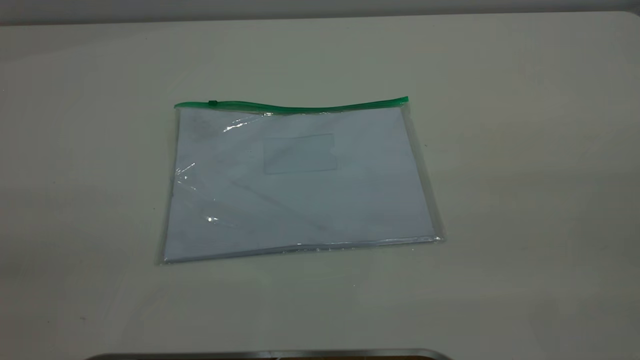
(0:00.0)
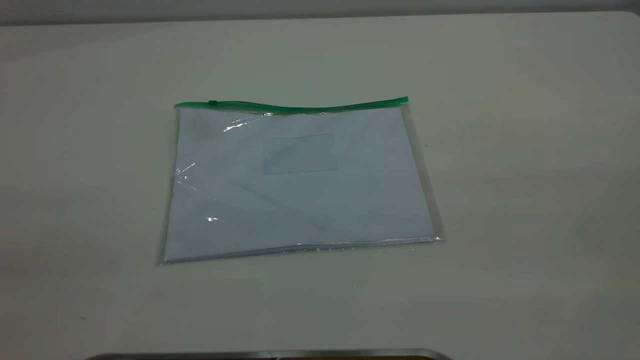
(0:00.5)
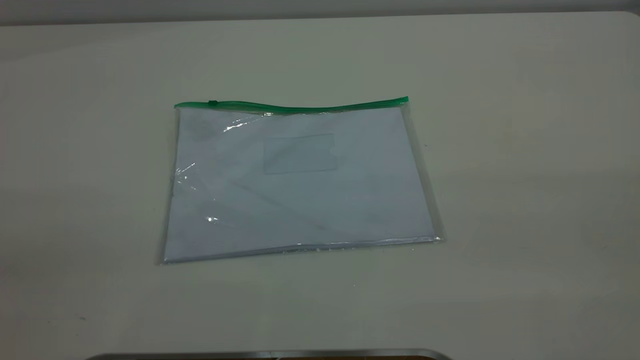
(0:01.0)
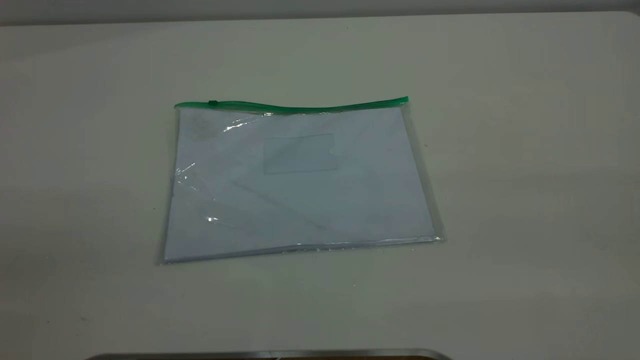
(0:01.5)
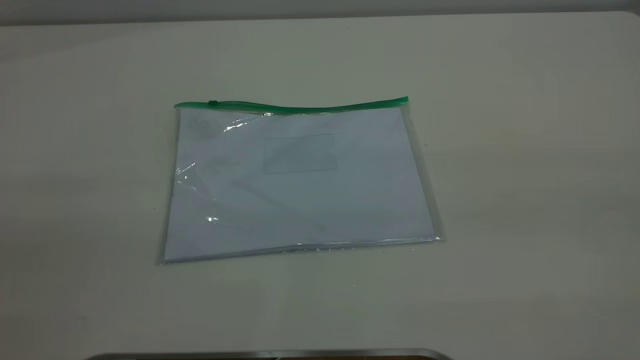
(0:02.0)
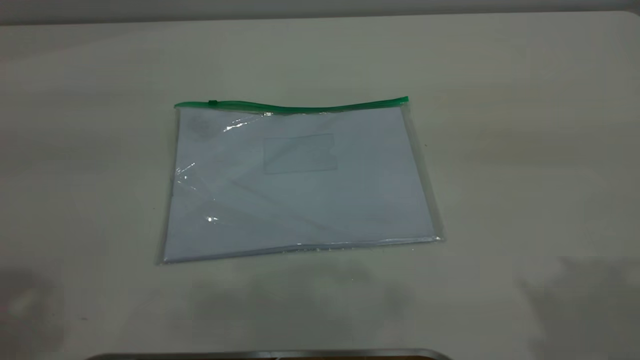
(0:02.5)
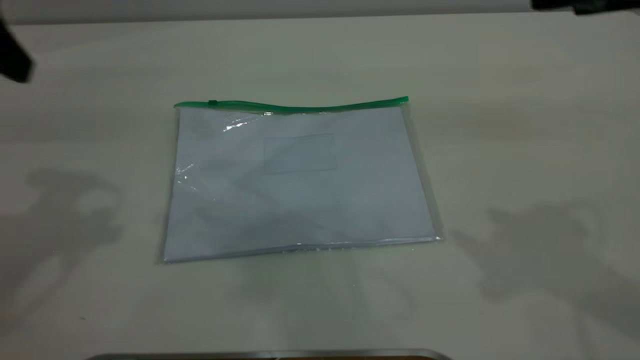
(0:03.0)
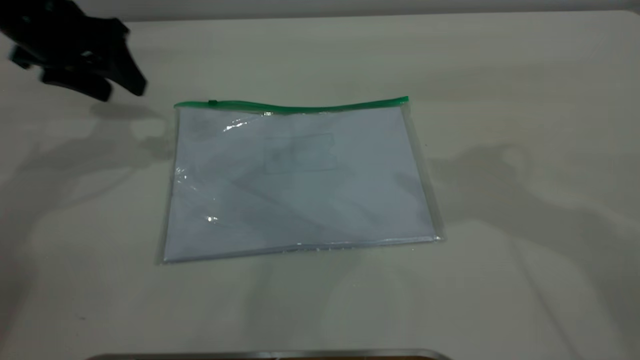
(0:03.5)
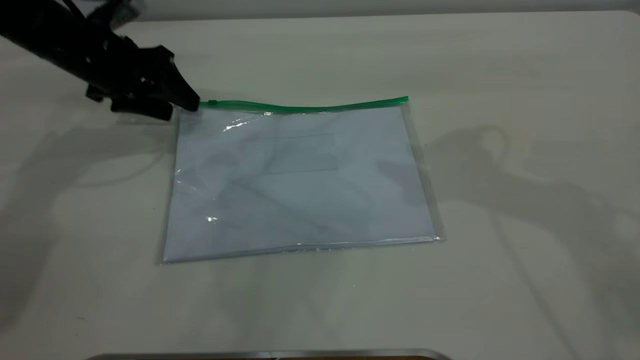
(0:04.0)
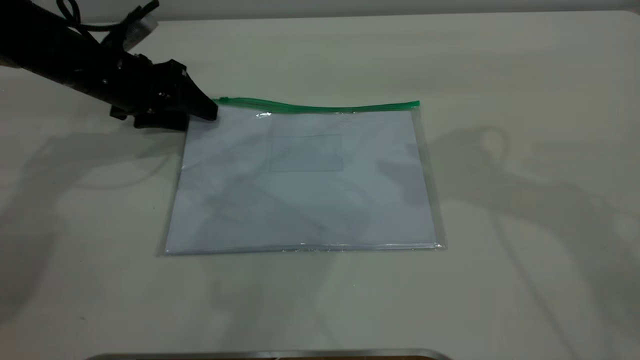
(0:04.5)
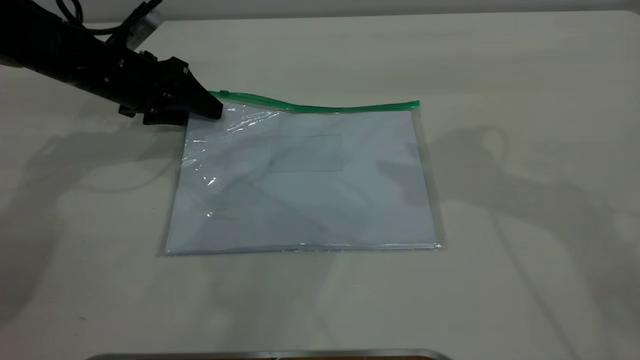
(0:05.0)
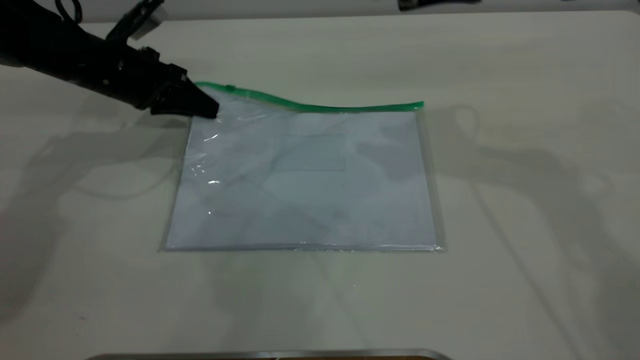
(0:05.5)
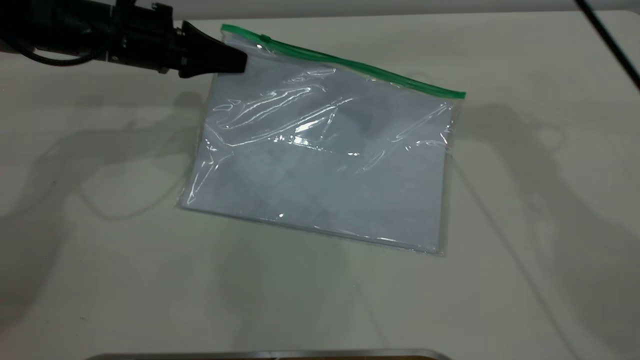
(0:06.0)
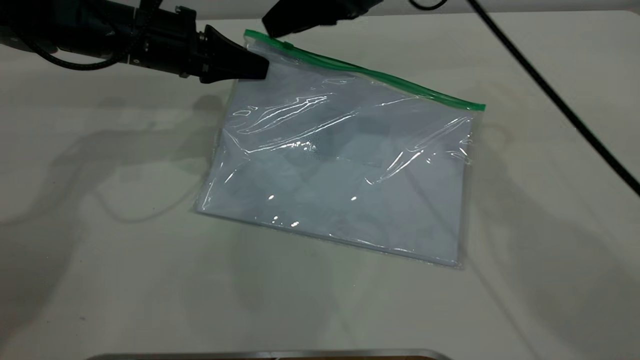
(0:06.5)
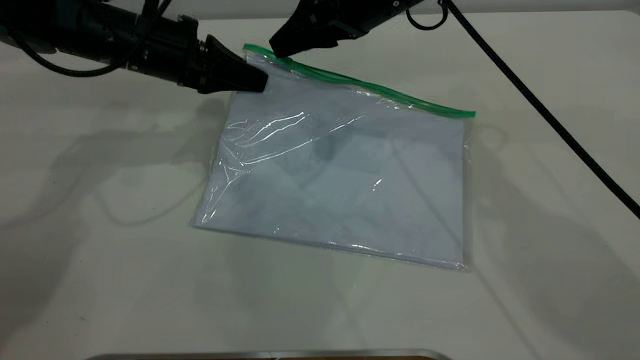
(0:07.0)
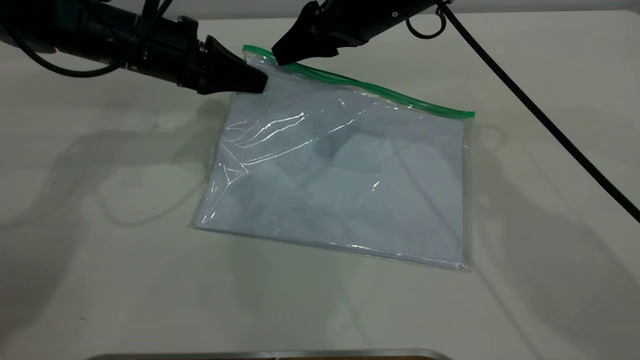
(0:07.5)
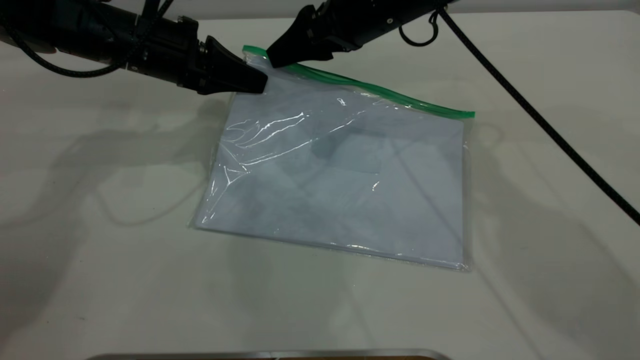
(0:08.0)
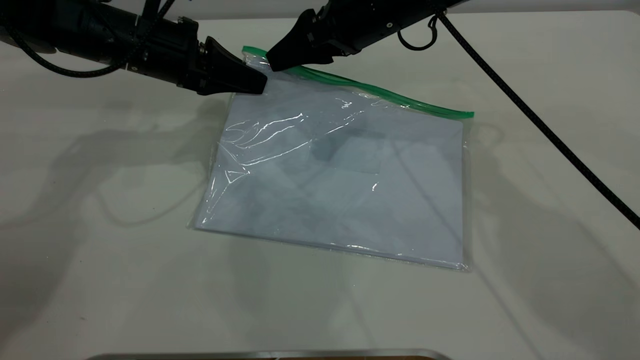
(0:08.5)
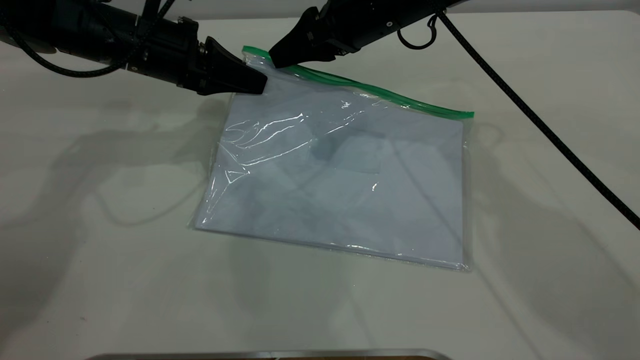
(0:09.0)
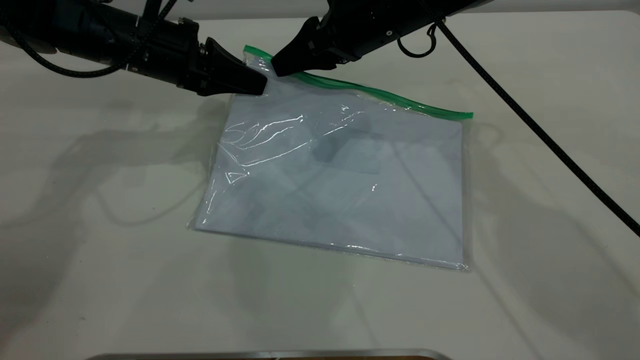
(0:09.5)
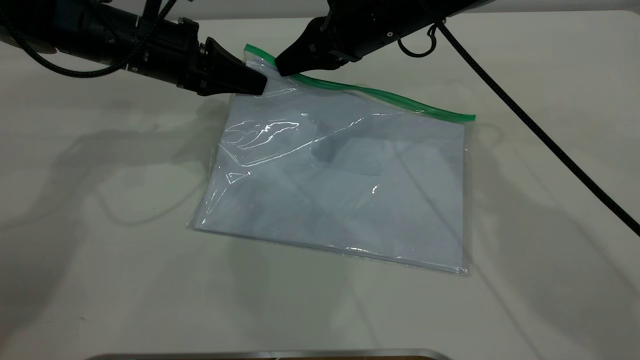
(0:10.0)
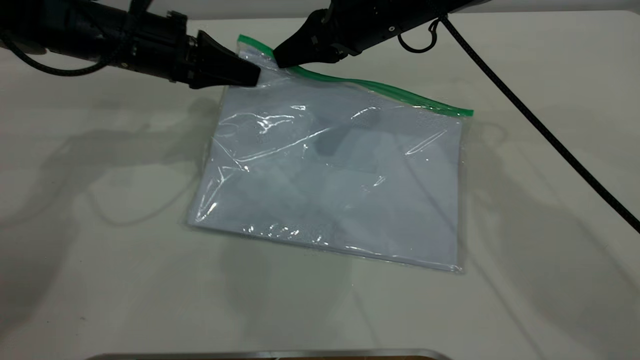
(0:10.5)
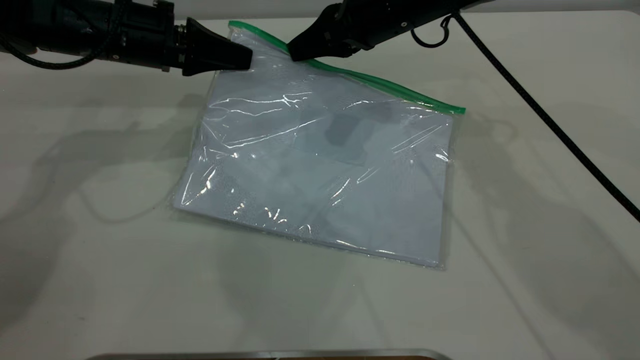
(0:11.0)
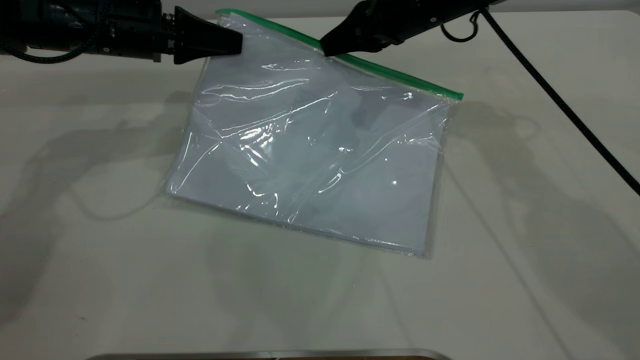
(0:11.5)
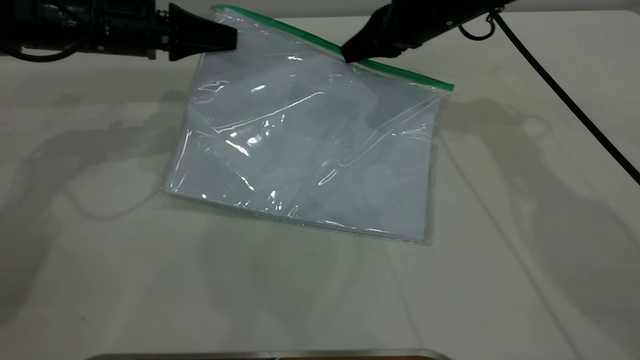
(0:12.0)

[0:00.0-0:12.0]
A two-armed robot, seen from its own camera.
Step, 0:00.0 to 0:05.5: Pick up the transparent plastic bag with the left gripper.
0:02.0 to 0:04.0: The left gripper heads forward and downward, covering some 50 cm.
0:04.0 to 0:06.0: The left gripper closes its fingers. The right gripper moves forward, downward and to the left, about 15 cm.
0:06.0 to 0:08.0: The right gripper goes approximately 10 cm downward and to the left.
0:08.0 to 0:10.0: The right gripper closes its fingers.
0:10.0 to 0:12.0: The right gripper shifts some 5 cm to the right.

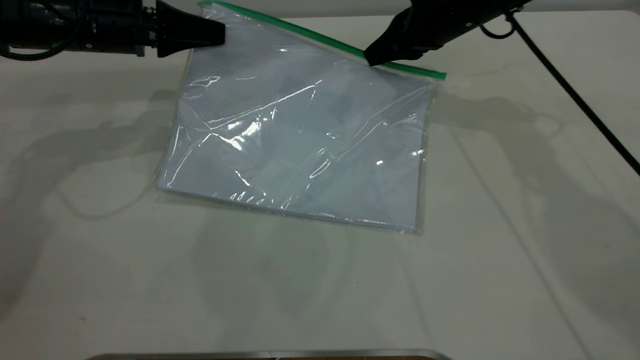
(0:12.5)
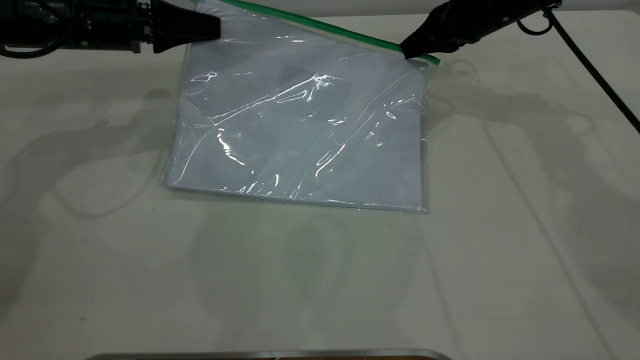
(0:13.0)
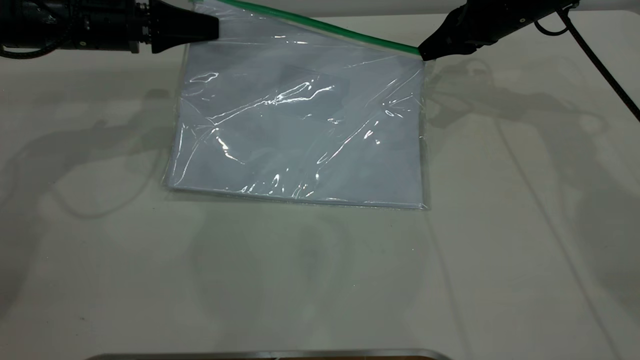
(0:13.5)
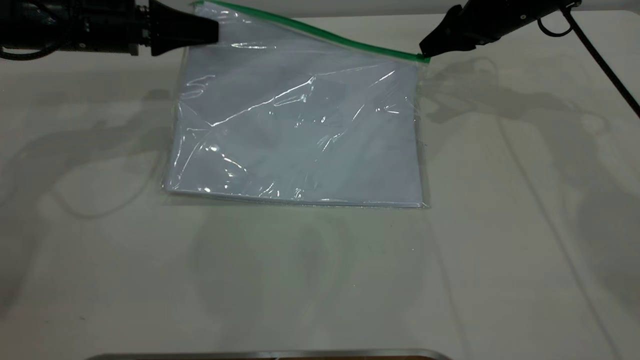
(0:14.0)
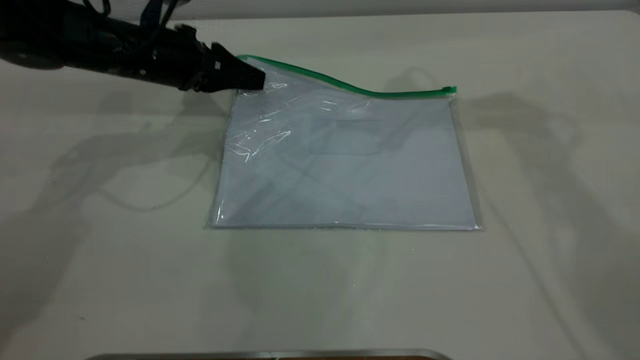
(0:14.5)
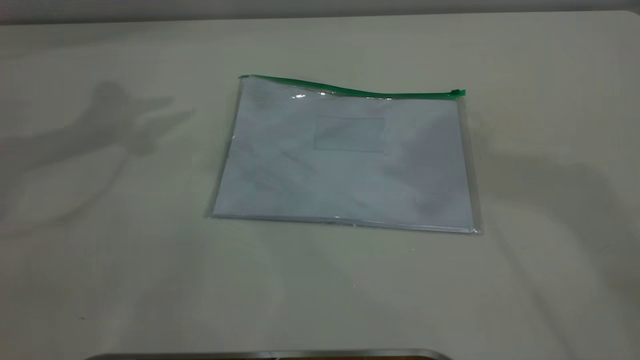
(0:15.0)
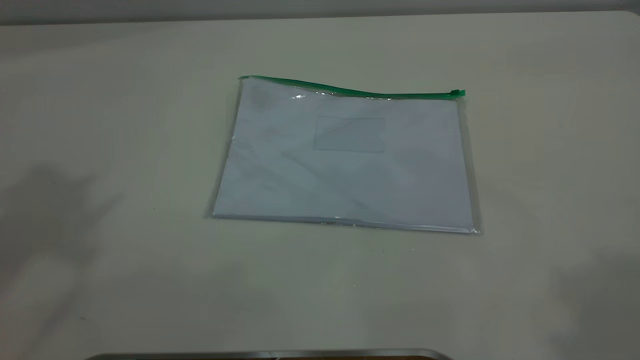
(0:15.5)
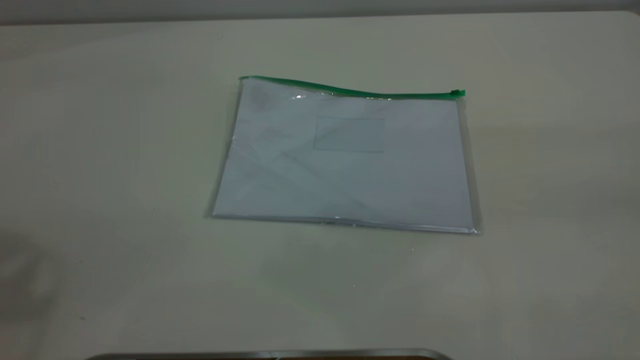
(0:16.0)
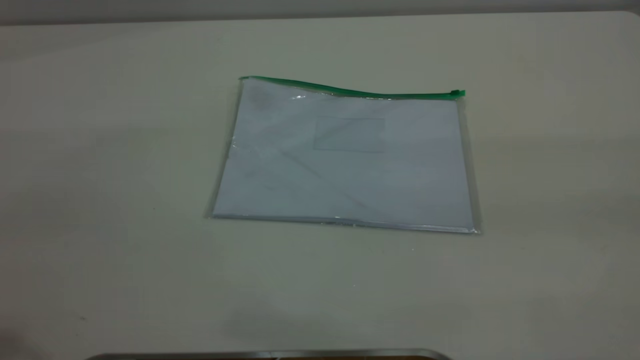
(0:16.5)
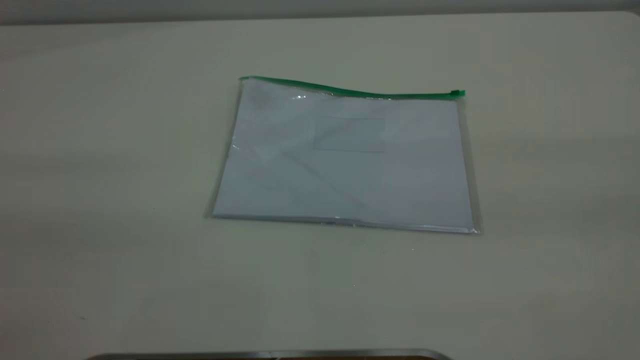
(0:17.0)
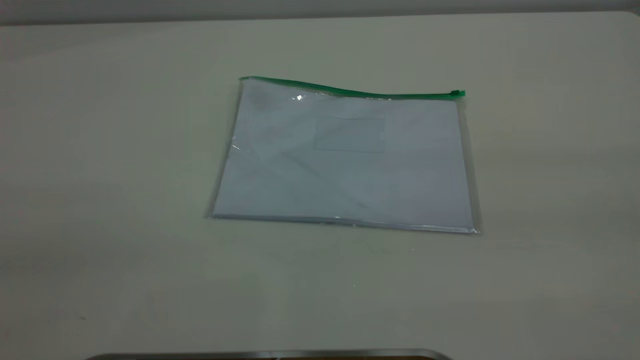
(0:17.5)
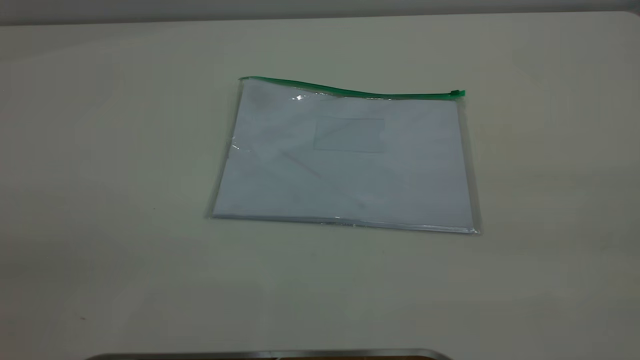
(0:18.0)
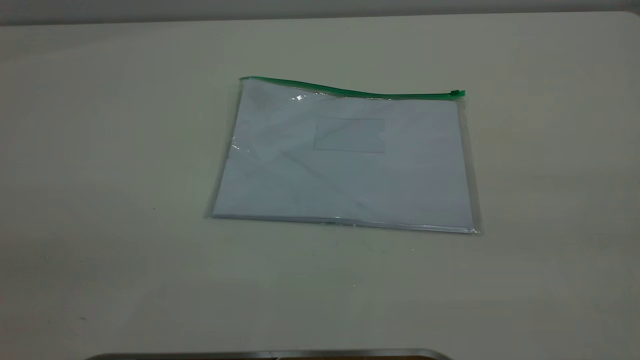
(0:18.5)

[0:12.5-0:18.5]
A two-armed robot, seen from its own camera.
0:12.5 to 0:14.5: The right gripper moves upward, roughly 20 cm, and opens; the left gripper opens.
0:14.5 to 0:16.5: The left gripper is displaced backward and upward by some 40 cm. The right gripper moves backward and to the right, about 40 cm.

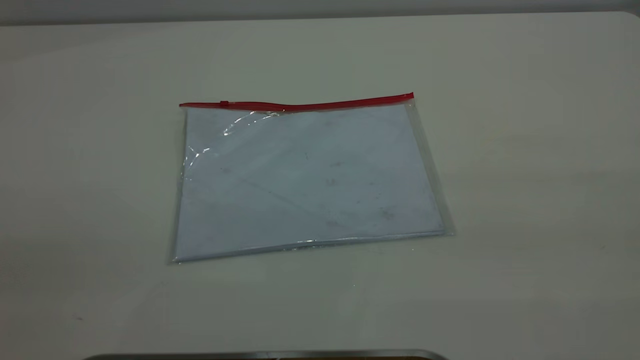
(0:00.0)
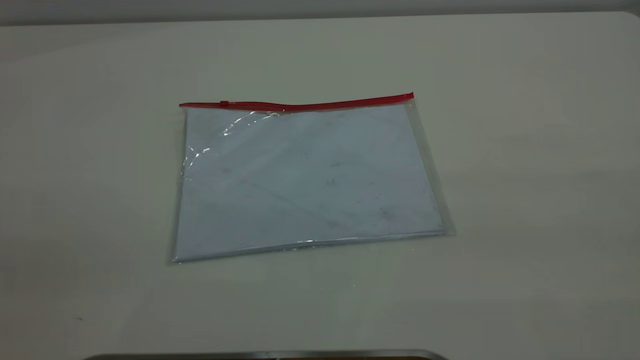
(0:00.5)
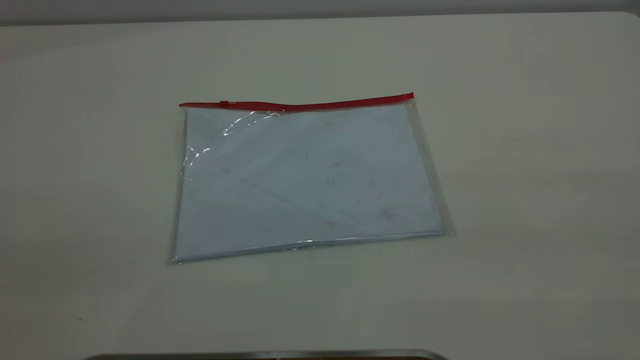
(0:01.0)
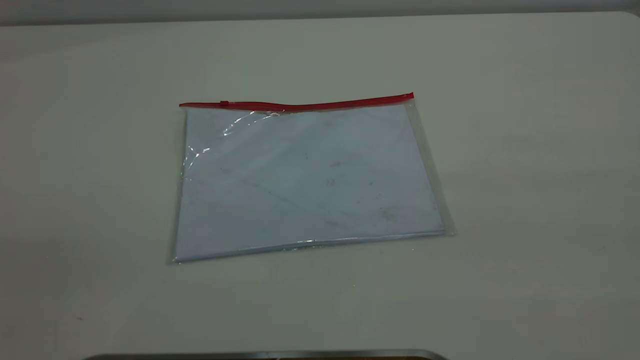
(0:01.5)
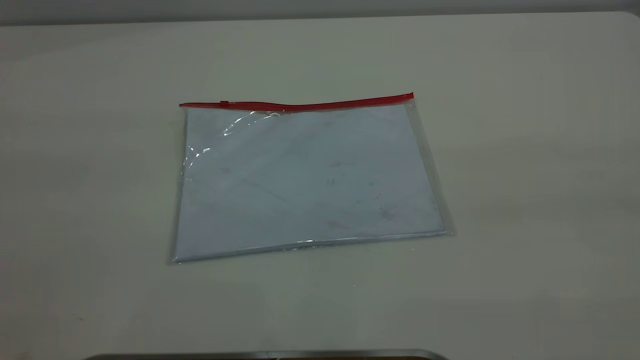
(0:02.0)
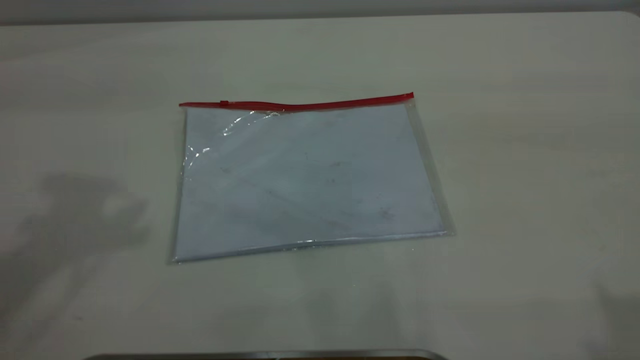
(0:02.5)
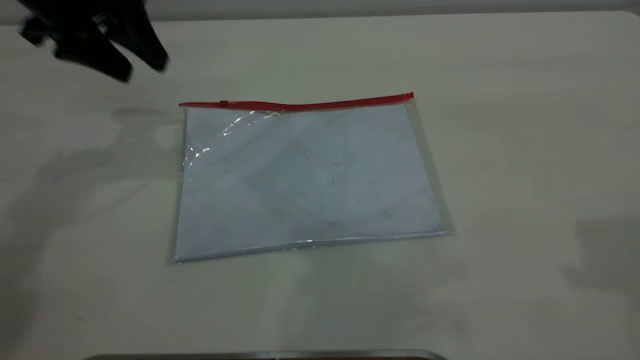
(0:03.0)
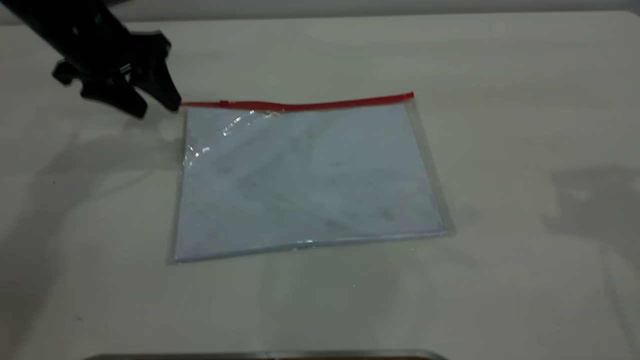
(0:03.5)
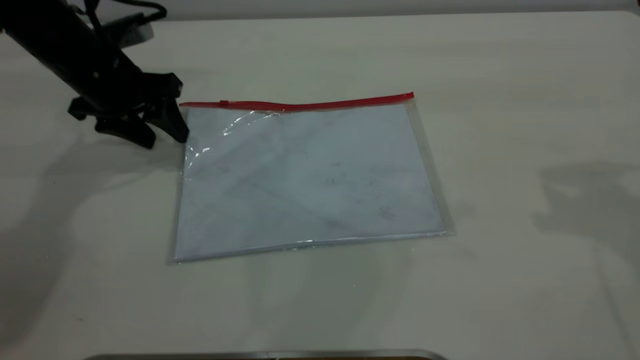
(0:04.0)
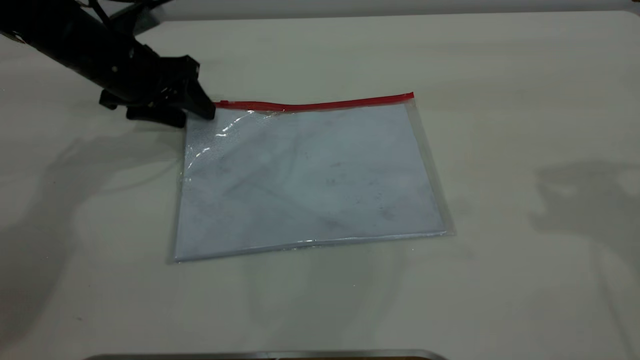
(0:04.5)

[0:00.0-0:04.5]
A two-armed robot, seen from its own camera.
0:02.0 to 0:04.5: The left gripper goes some 50 cm forward and downward.
